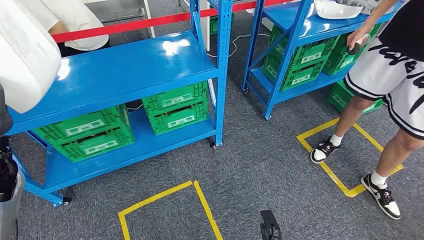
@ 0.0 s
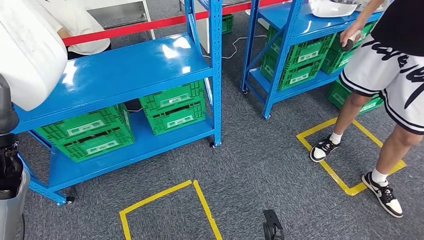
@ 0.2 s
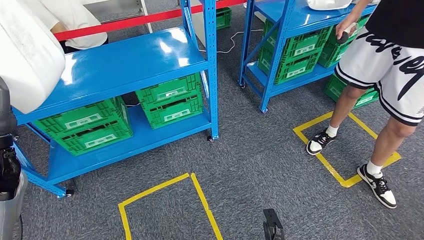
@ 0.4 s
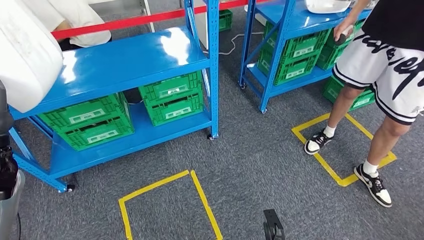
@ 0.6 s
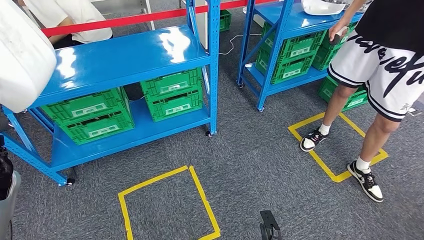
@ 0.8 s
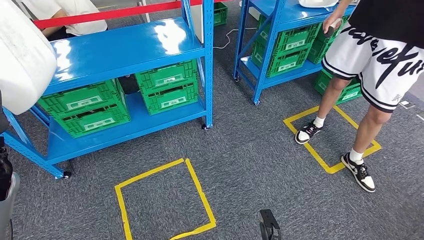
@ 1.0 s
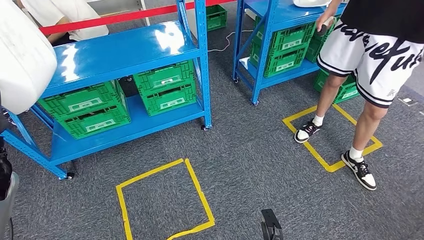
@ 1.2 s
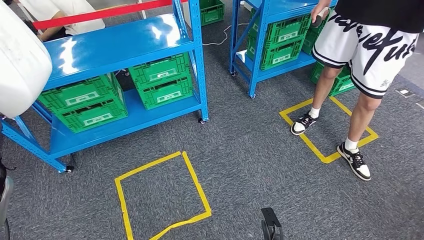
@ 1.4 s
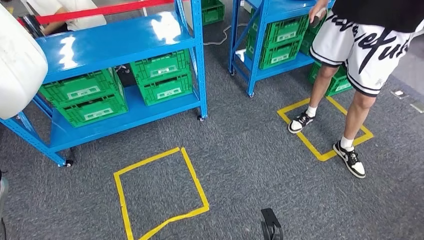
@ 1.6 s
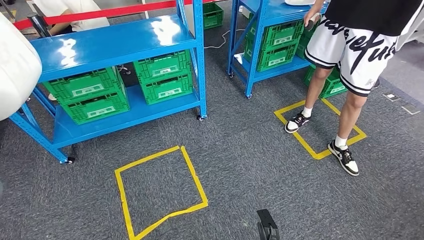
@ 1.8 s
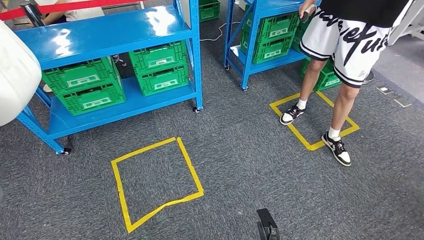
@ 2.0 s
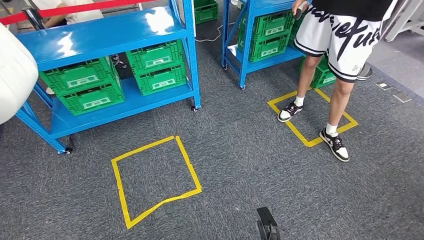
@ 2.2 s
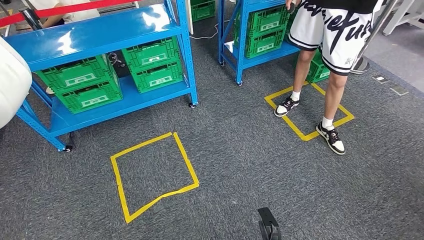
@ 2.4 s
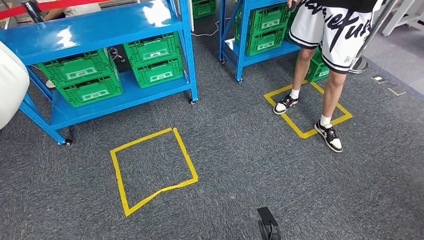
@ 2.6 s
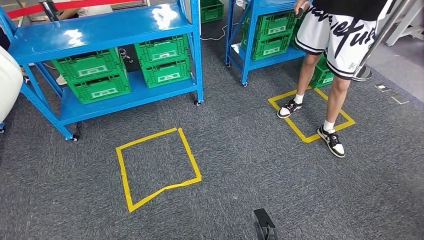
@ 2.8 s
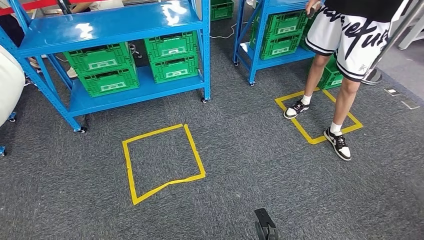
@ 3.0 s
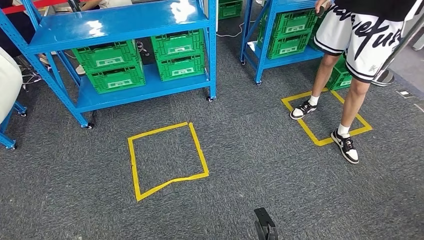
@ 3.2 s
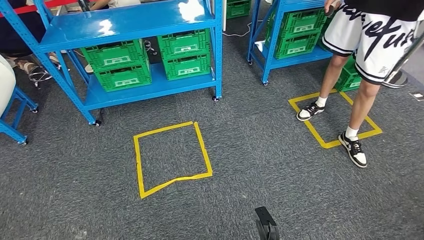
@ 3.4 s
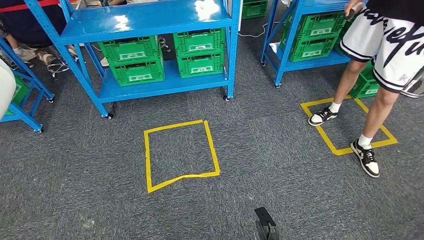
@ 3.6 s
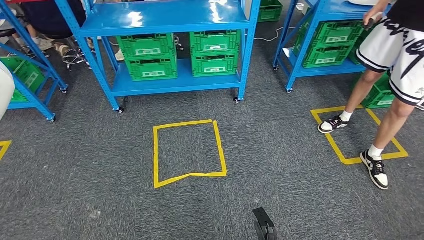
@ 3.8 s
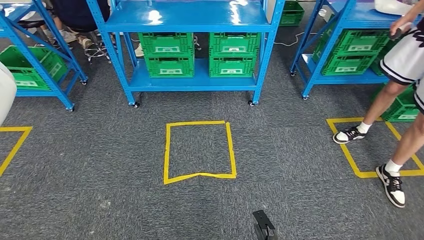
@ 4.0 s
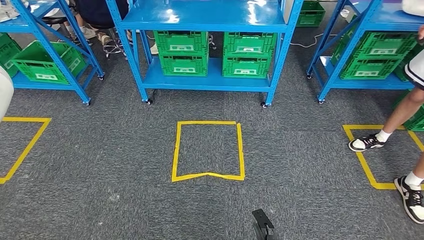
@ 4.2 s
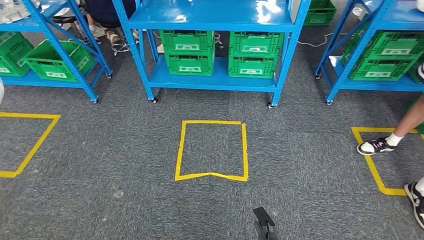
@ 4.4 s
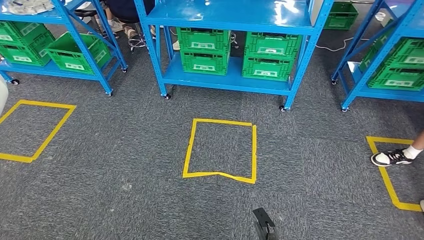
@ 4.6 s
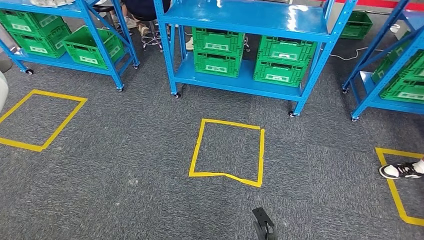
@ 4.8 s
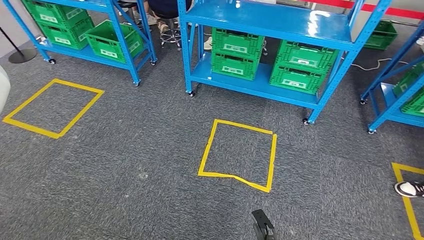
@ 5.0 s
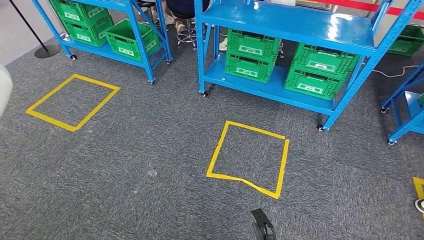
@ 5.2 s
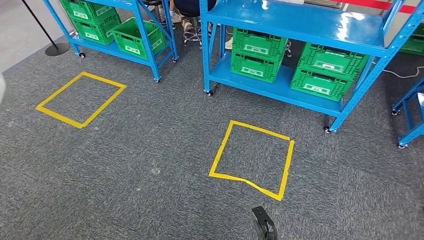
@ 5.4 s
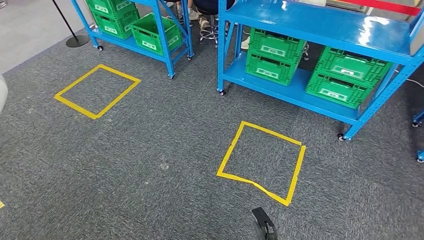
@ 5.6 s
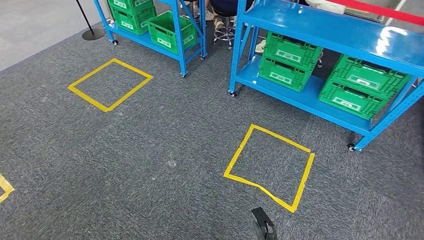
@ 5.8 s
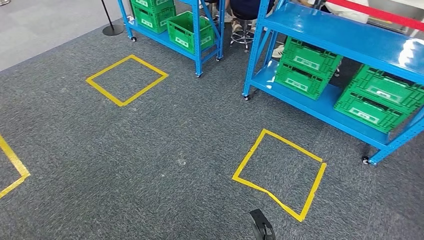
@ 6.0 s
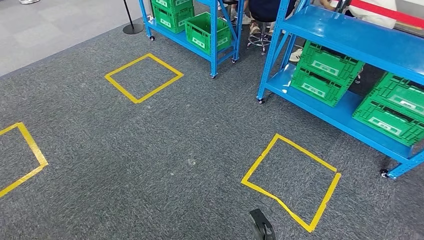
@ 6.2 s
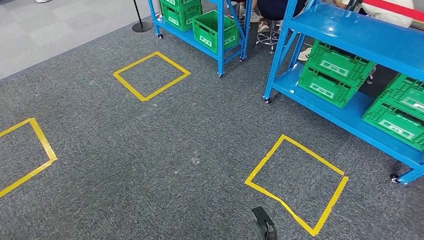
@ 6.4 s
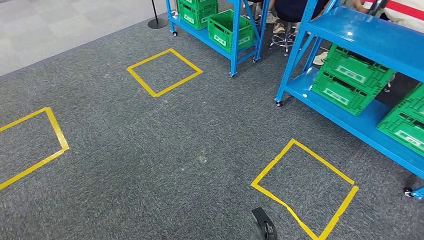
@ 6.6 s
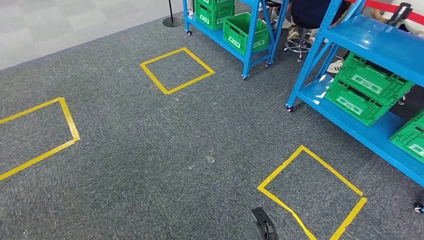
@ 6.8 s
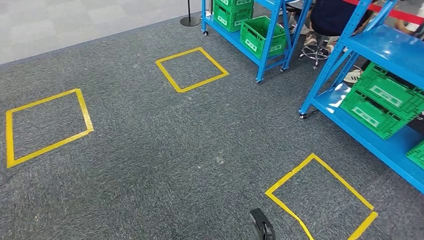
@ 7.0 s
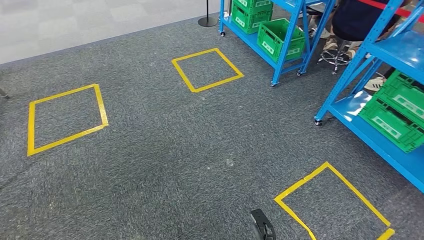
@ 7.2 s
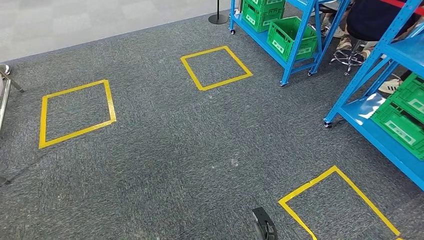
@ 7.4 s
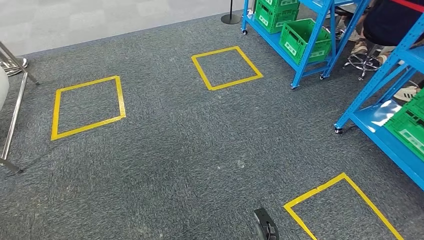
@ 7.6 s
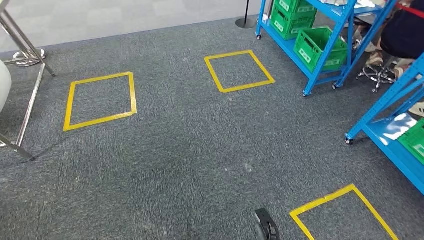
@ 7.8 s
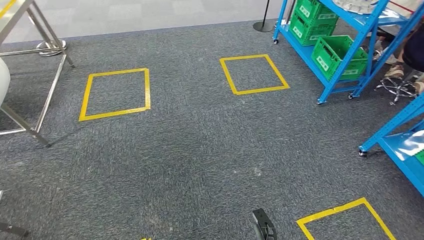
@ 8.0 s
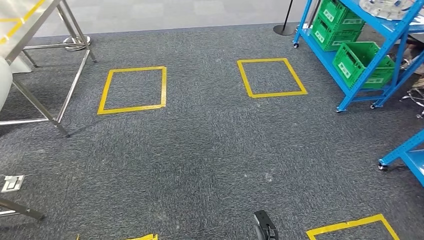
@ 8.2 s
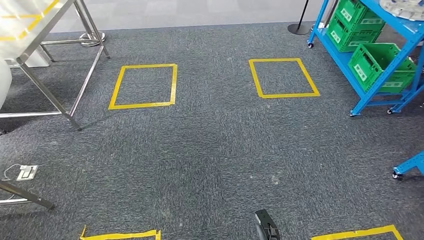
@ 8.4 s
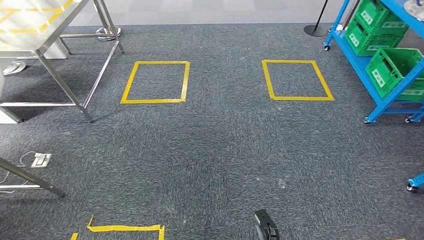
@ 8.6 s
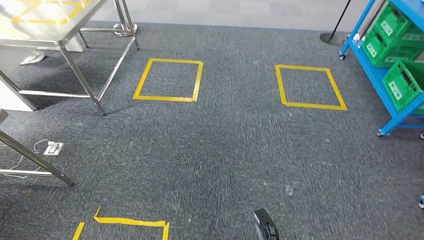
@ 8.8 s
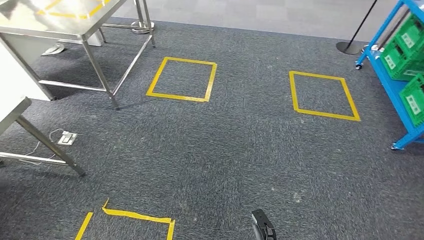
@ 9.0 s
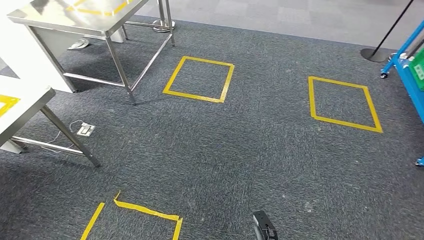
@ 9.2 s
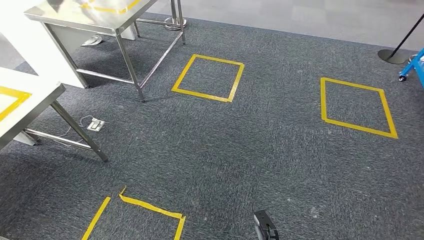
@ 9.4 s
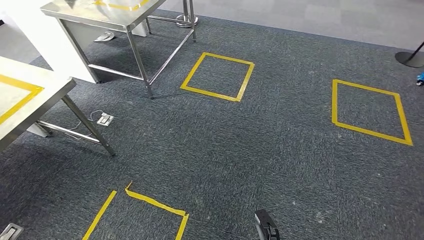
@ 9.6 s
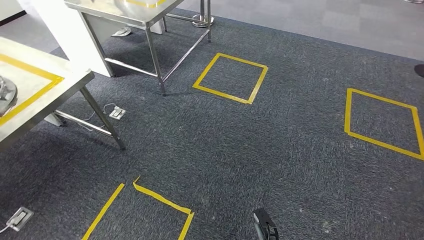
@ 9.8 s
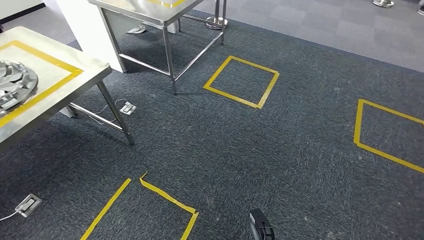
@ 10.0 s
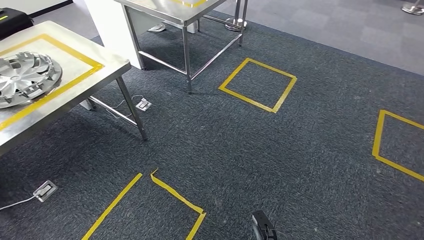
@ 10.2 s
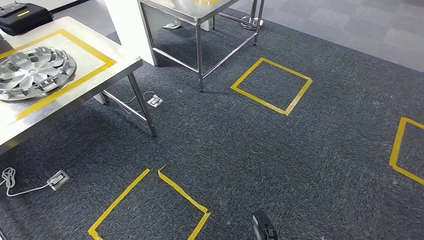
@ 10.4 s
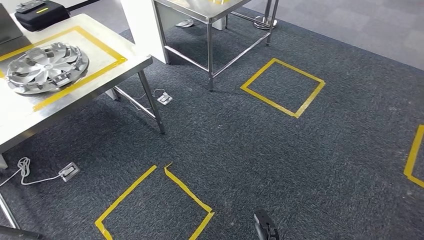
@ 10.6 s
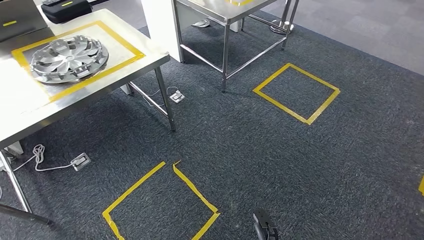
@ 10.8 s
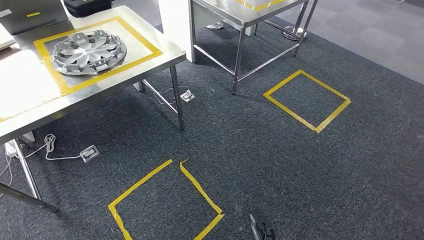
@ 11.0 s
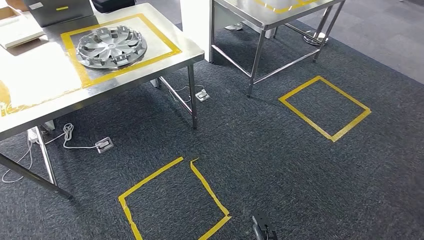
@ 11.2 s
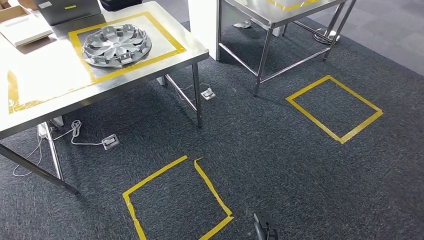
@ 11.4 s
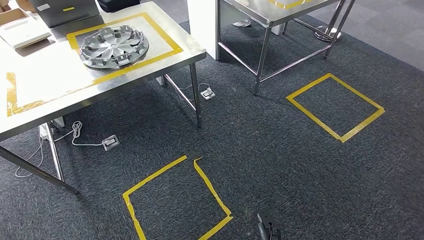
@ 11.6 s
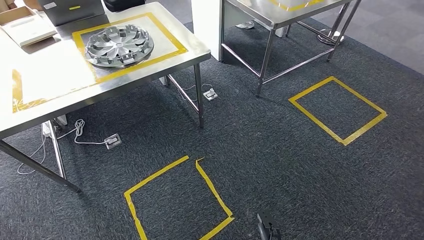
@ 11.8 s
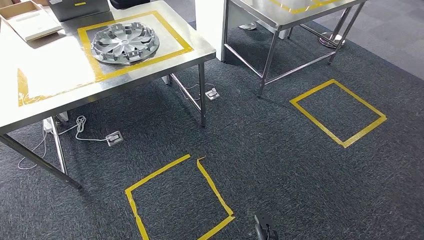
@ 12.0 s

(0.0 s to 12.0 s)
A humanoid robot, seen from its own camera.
Step, 0.0 s - 1.0 s: Pick up the small component from the shelf.

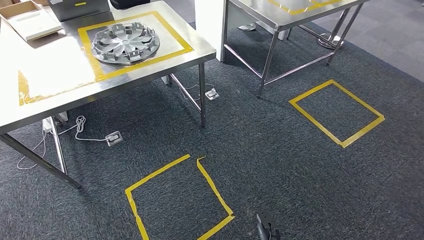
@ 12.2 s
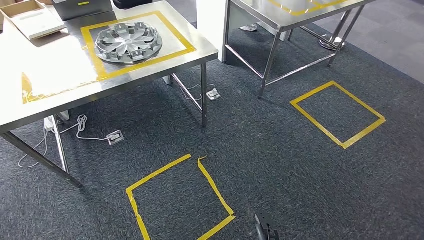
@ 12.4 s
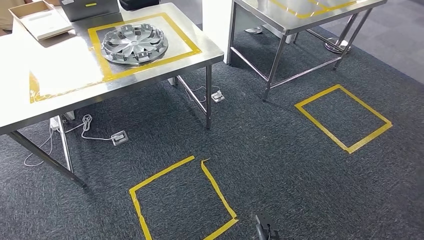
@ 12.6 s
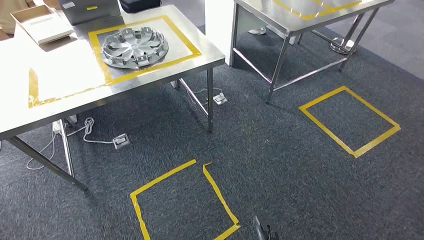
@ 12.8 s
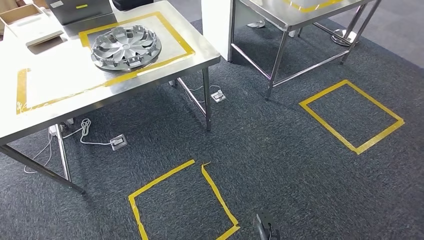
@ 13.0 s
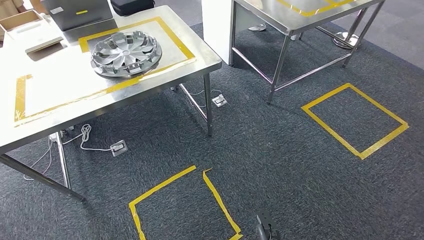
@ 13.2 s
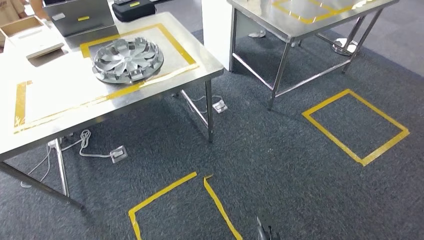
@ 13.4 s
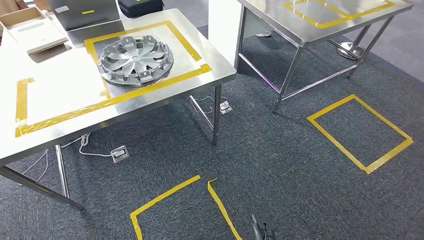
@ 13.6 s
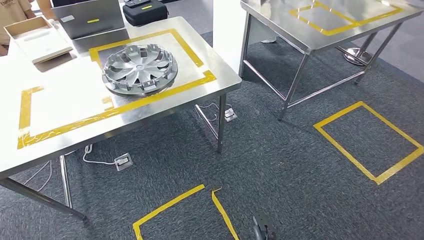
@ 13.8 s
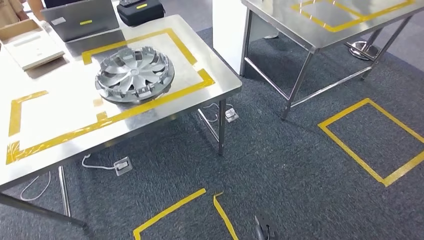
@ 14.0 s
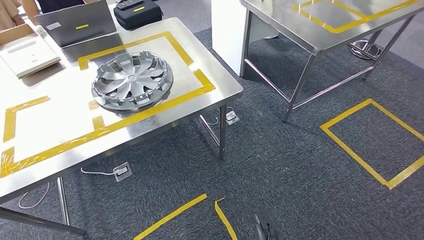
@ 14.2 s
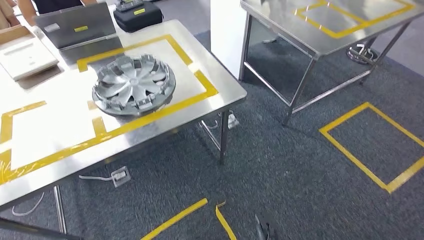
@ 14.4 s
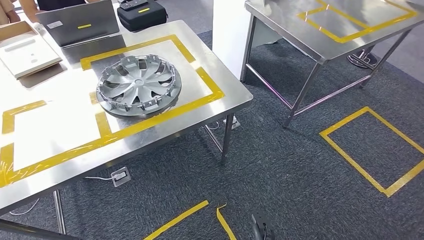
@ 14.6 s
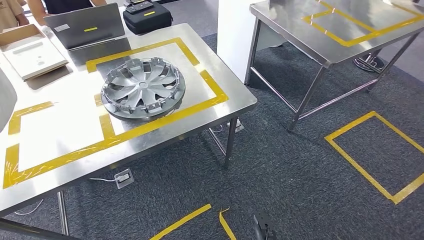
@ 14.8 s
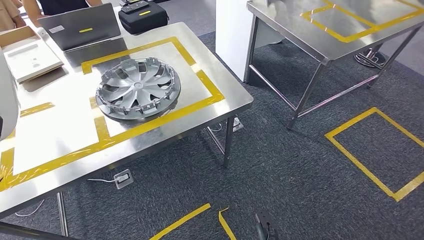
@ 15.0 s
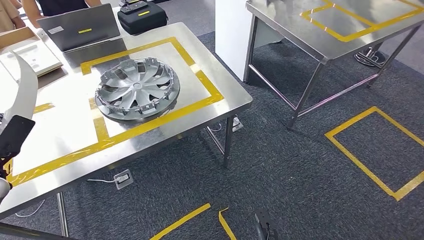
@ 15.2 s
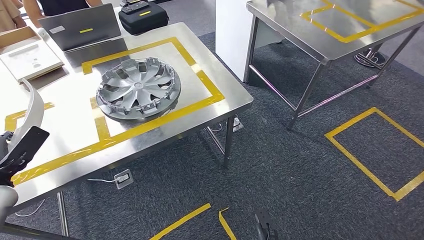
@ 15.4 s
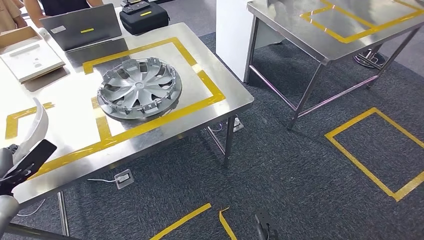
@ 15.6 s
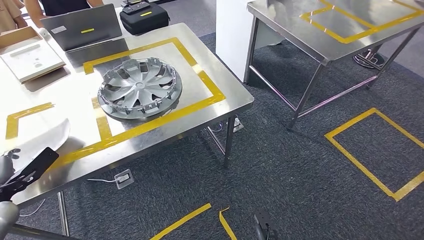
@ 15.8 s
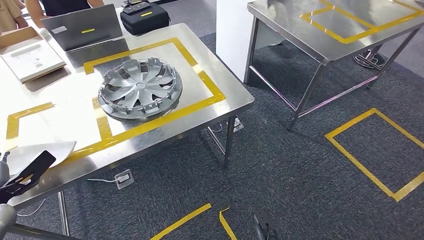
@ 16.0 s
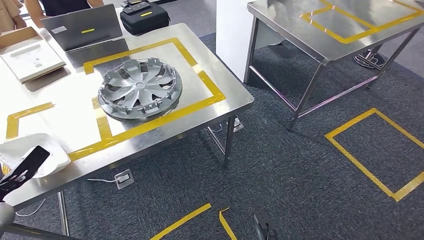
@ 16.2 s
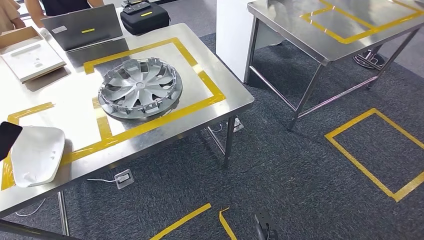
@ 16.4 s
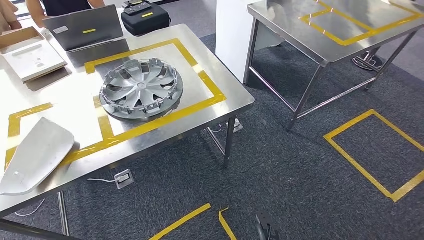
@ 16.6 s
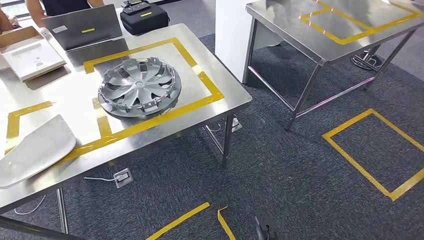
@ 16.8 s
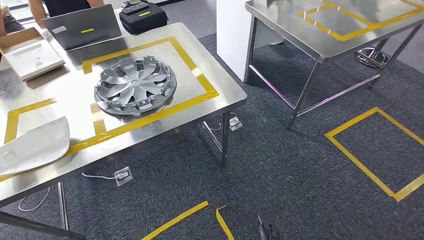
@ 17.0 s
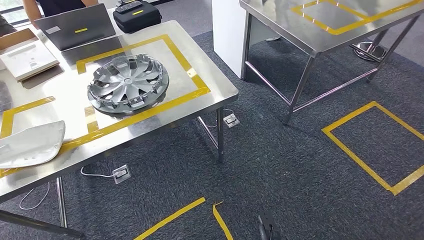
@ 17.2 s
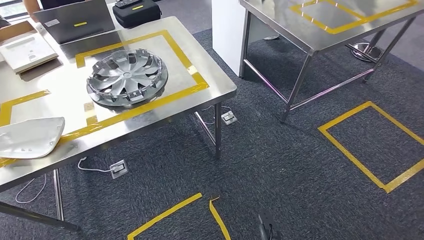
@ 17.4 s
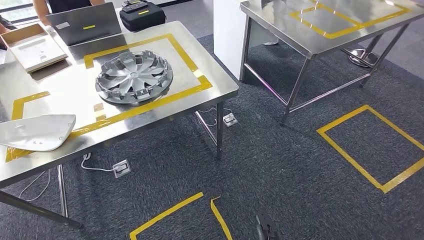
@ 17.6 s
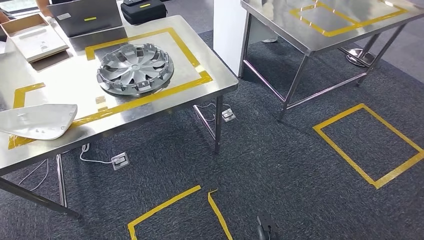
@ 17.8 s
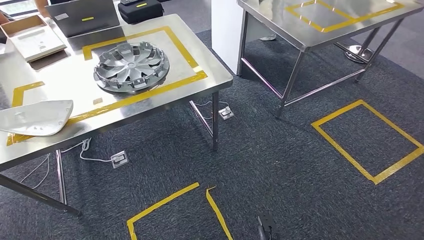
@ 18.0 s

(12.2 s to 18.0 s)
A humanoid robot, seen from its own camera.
Step, 12.2 s - 14.8 s: Move the small component to the workbench.
Step, 15.0 s - 17.2 s: Insert the small component into the corresponding slot on the workbench.
15.0 s - 16.6 s: The left hand travels upward by approximately 5 cm.
